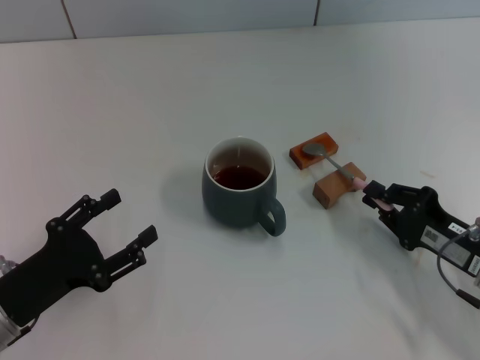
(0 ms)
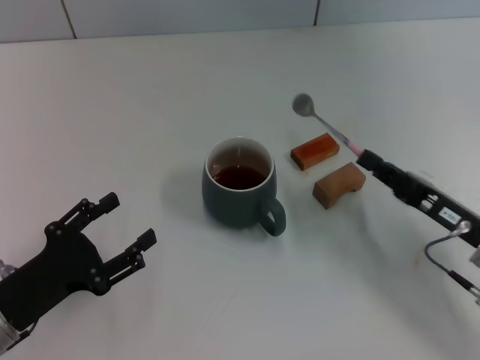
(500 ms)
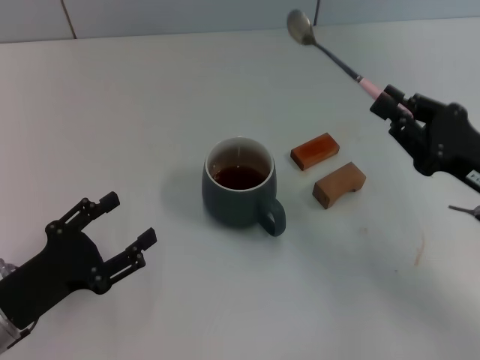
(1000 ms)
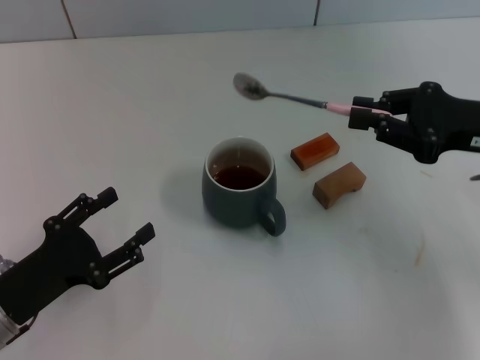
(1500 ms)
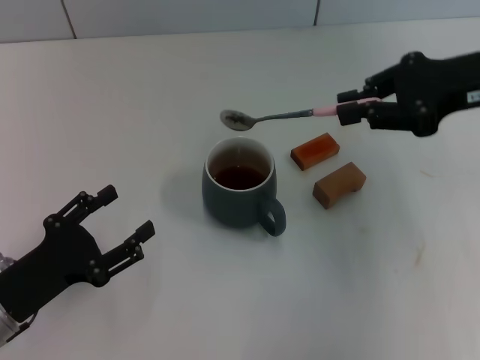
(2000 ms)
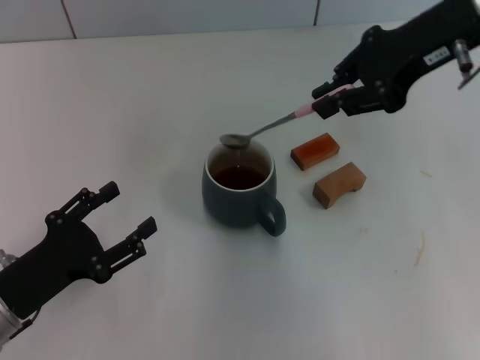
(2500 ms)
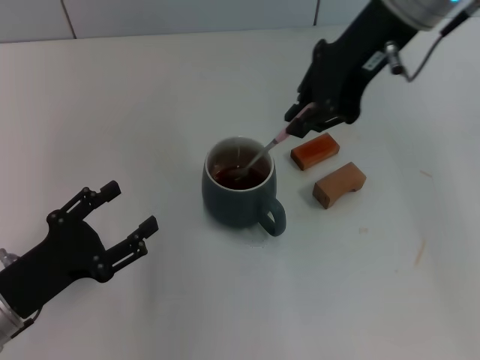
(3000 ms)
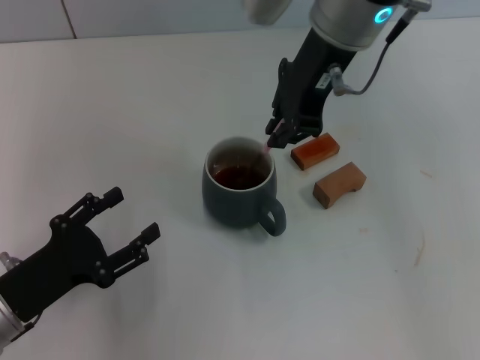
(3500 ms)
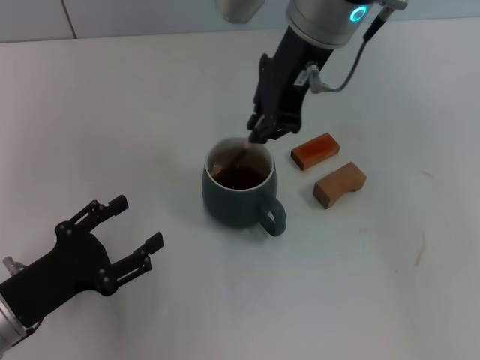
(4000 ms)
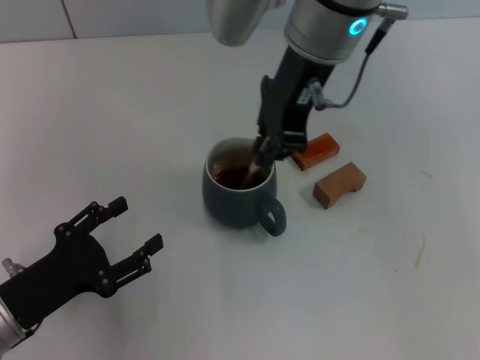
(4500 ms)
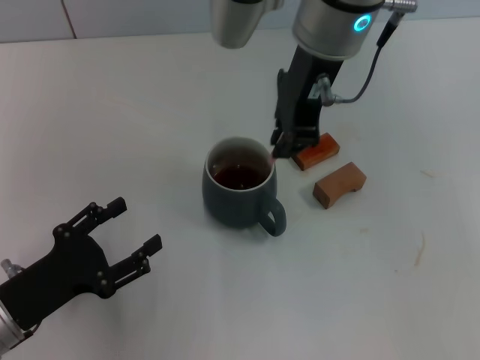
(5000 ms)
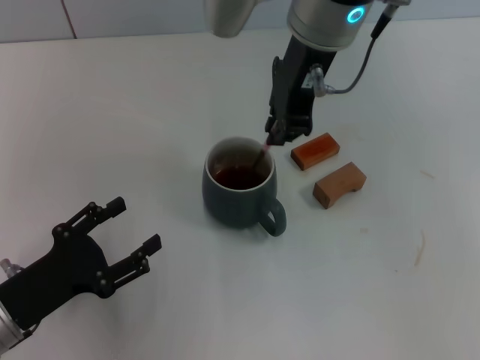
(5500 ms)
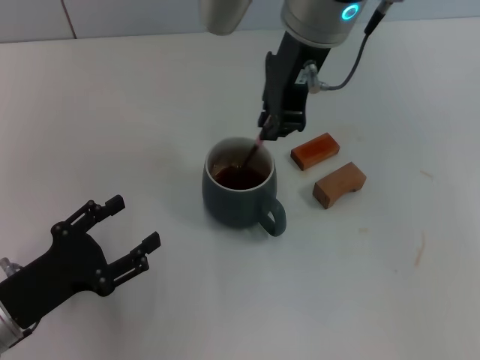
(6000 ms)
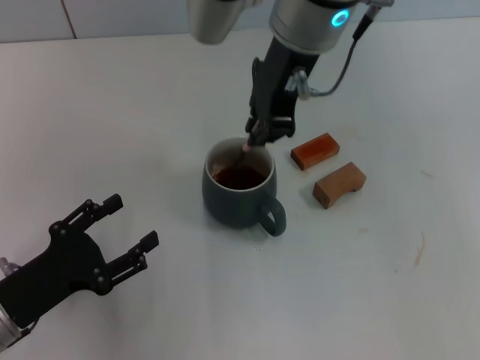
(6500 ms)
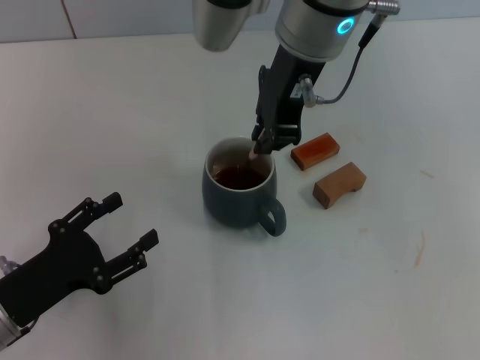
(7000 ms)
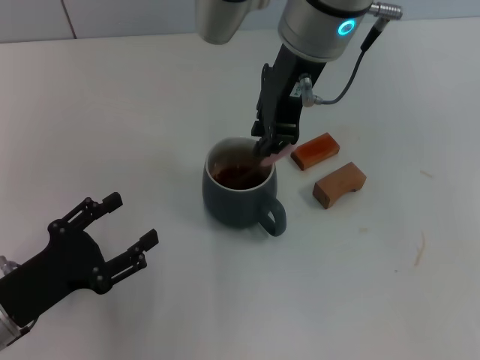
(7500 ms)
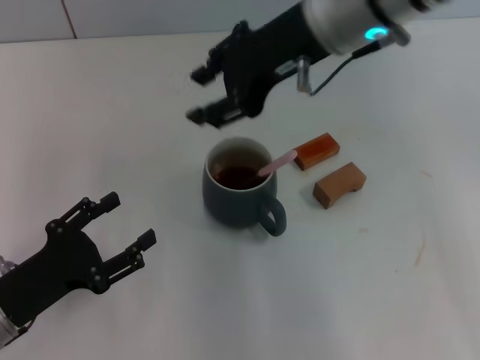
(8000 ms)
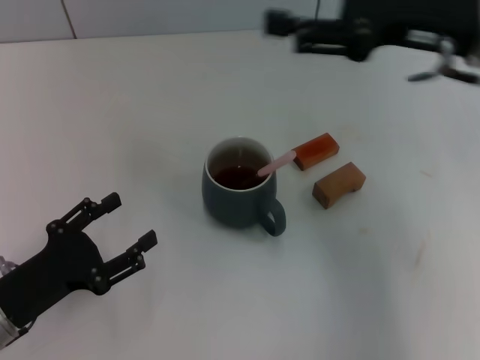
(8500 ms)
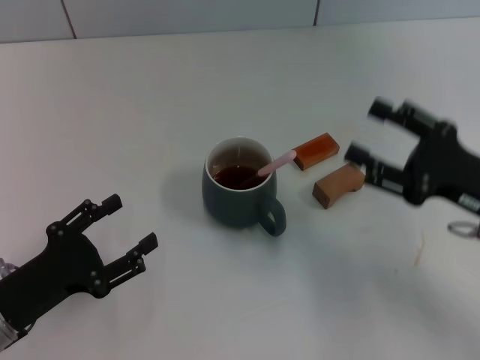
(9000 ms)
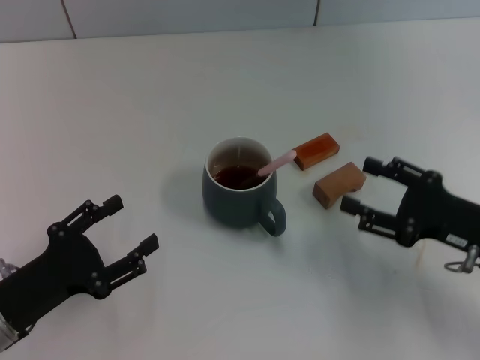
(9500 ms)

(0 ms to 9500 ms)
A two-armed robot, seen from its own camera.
Task of the whole recording: Move the grey cup to the center, lift the pink spoon, stir it three times in the cup, and put the spoon into the cup.
Step, 500 ms - 7500 ms: Stir the coffee in the cup with the right gripper.
0 ms - 2000 ms: The right gripper goes about 25 cm upward and forward.
2000 ms - 4000 ms: The right gripper heads to the left, covering approximately 20 cm.
4000 ms - 5500 ms: The grippers make only small movements.
5500 ms - 7500 ms: Both grippers stay about where they are.
7500 ms - 9500 ms: The right gripper heads to the right, downward and backward, covering some 35 cm, and opens.
